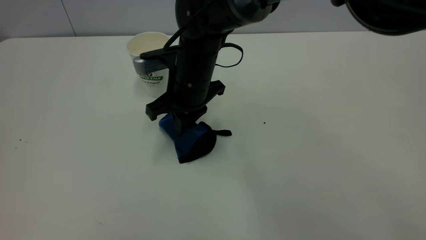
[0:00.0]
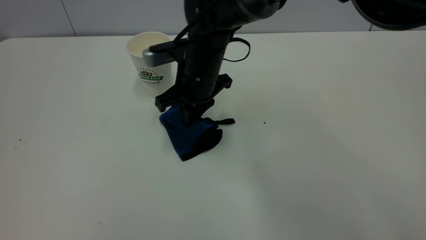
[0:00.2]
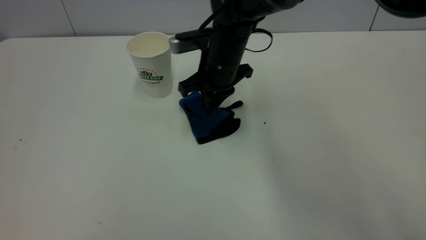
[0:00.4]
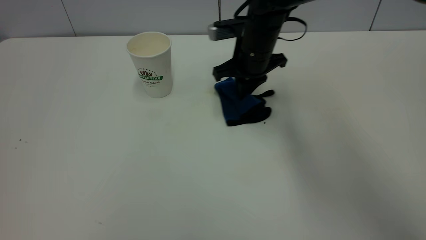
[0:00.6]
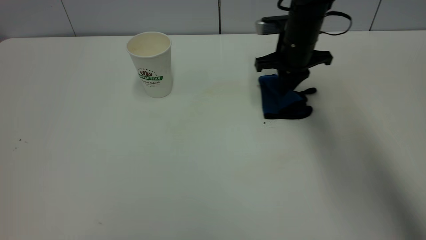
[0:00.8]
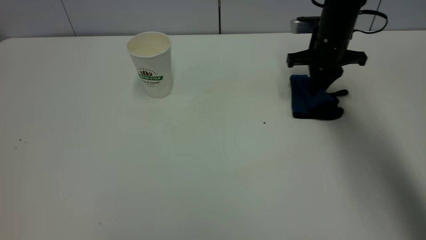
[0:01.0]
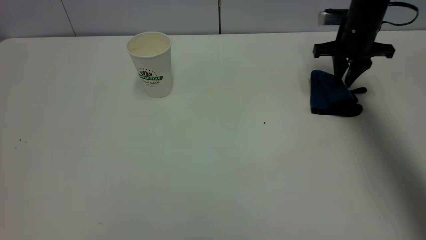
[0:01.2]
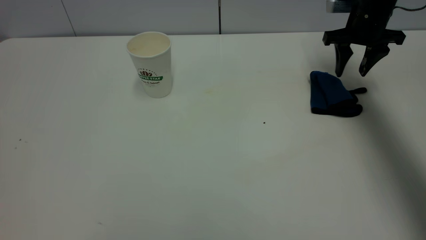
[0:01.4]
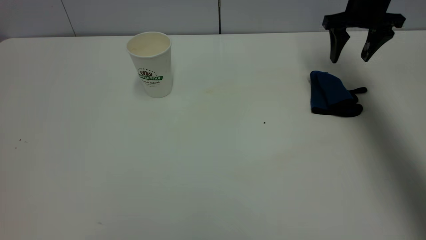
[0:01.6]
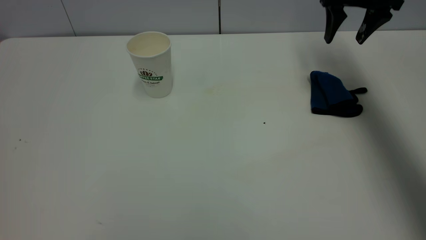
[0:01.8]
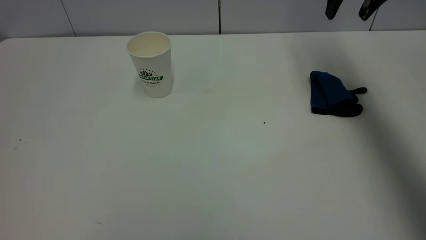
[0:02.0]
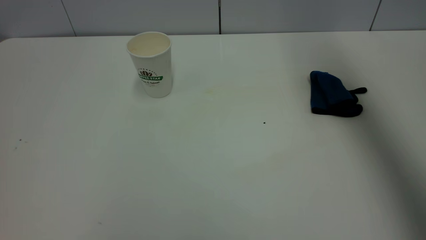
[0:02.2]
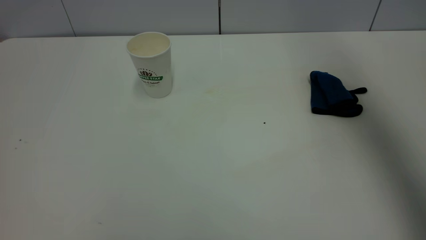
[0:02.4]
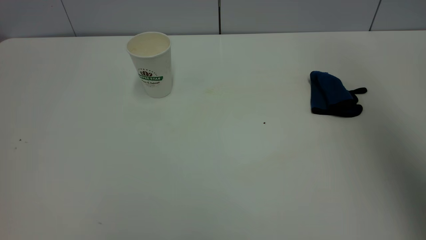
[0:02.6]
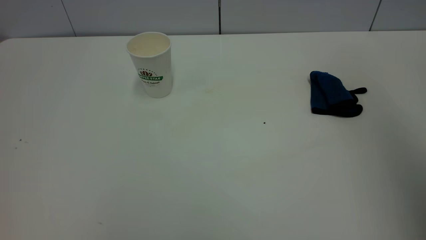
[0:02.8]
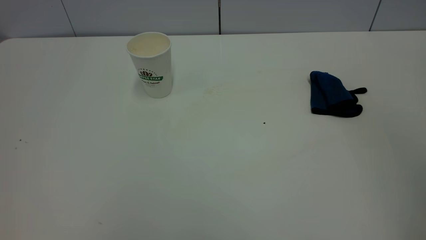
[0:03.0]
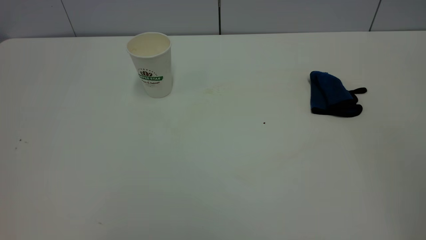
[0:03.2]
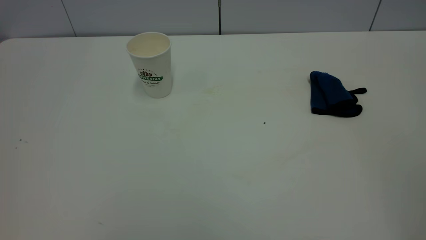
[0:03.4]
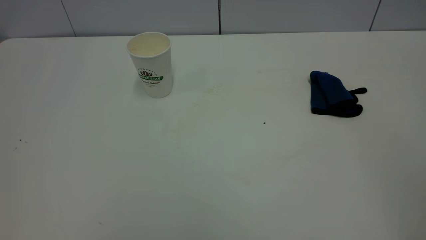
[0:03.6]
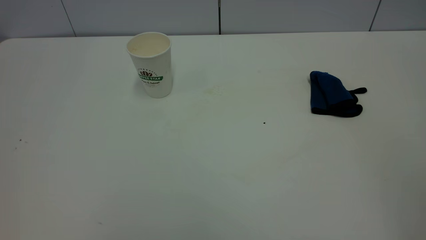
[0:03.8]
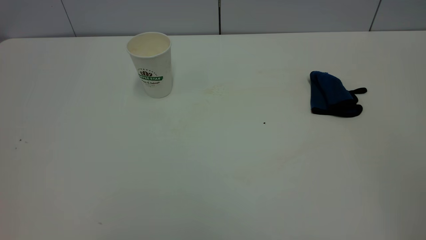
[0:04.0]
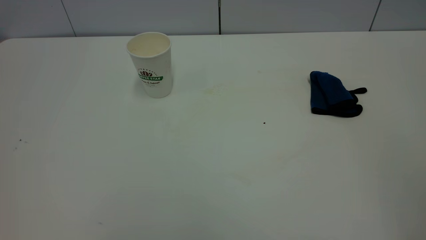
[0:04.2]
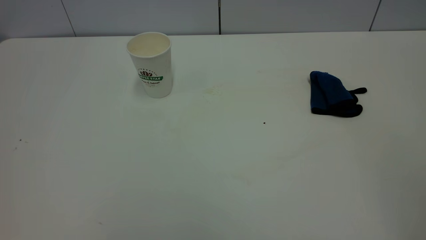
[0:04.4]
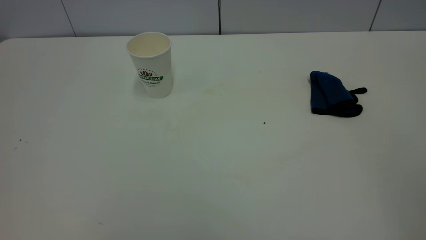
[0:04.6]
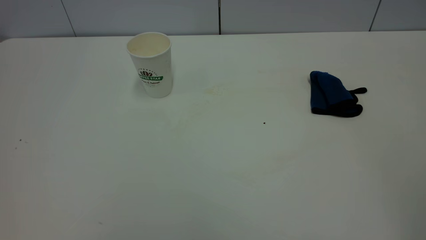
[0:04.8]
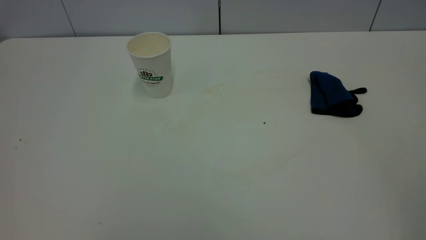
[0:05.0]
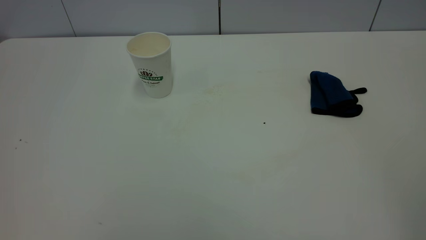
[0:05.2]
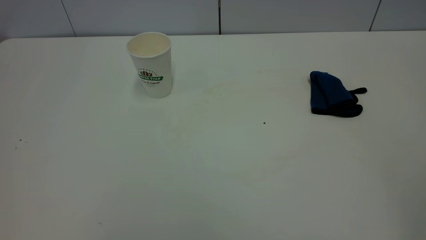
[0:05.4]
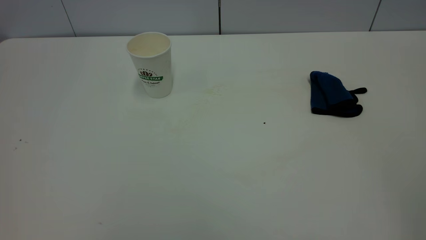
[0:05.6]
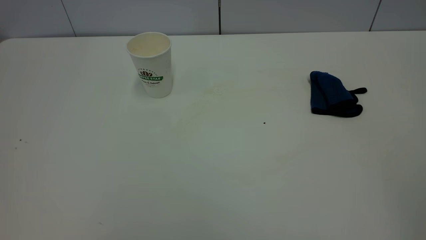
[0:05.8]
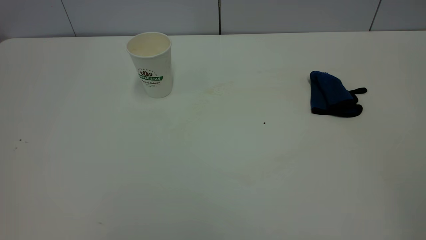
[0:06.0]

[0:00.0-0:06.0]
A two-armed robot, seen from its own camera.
Task of the whole recording: the left gripper pick up the fallen cup and place it upright, the right gripper grasp the blue rag and wipe the tea stain on the table, the right gripper put the blue rag back in its original position.
0:00.0 to 0:01.6: The right gripper moves to the right, approximately 30 cm, and opens up.
0:01.6 to 0:03.0: The right gripper goes approximately 50 cm backward and upward.
